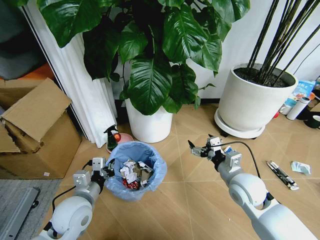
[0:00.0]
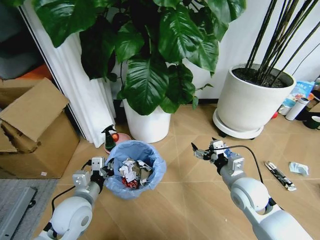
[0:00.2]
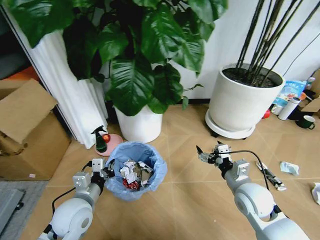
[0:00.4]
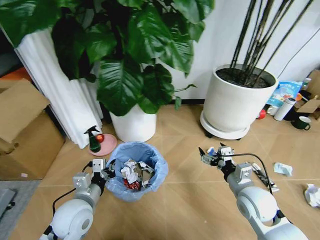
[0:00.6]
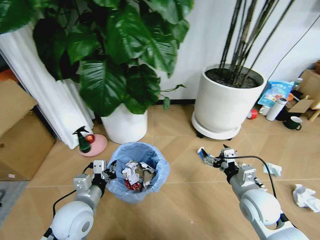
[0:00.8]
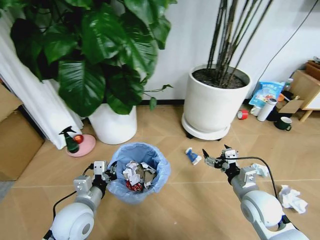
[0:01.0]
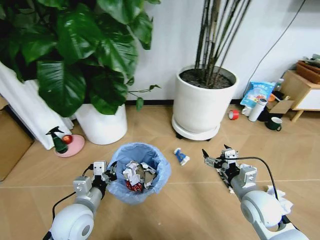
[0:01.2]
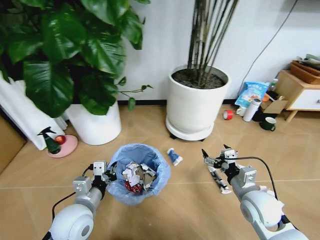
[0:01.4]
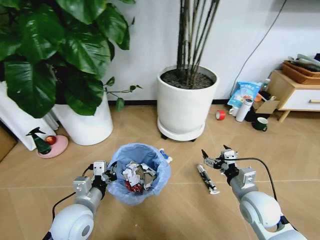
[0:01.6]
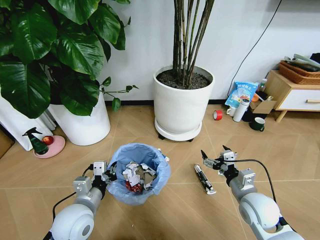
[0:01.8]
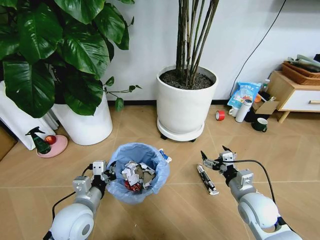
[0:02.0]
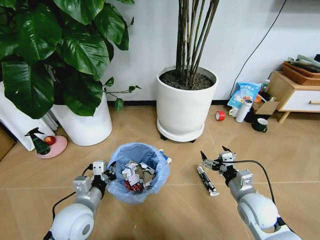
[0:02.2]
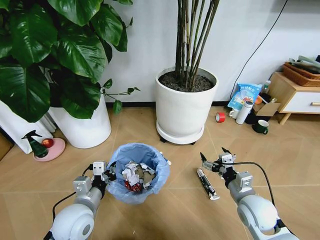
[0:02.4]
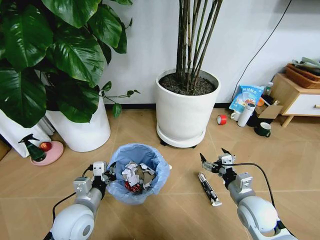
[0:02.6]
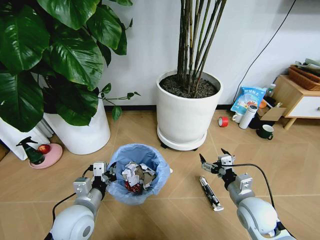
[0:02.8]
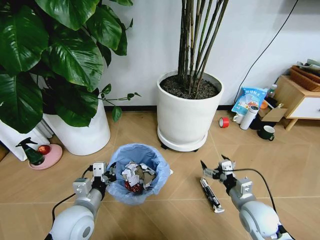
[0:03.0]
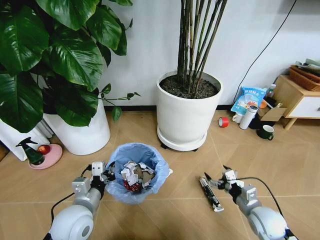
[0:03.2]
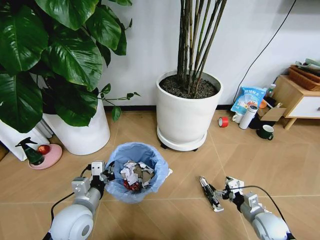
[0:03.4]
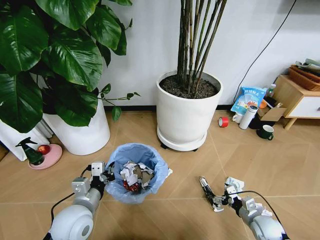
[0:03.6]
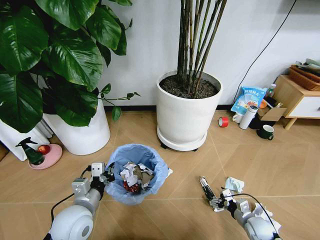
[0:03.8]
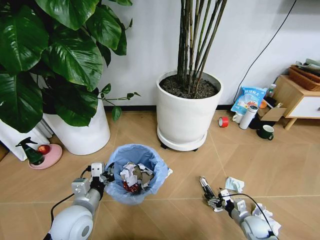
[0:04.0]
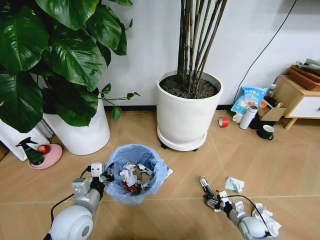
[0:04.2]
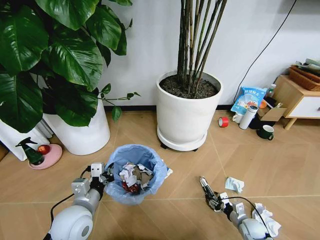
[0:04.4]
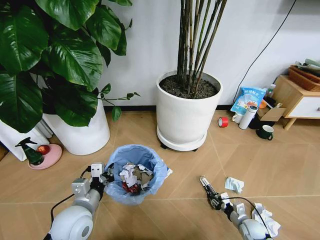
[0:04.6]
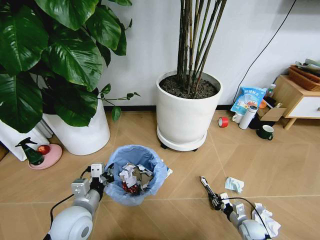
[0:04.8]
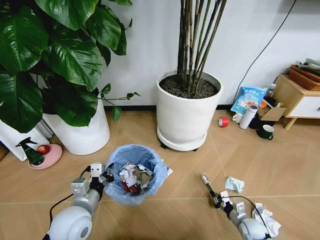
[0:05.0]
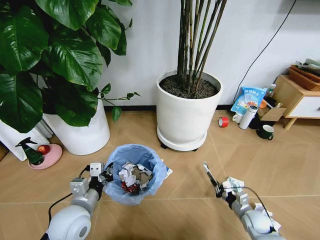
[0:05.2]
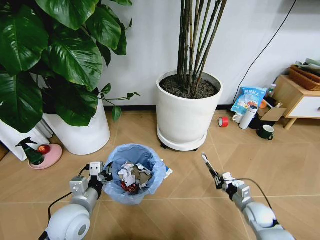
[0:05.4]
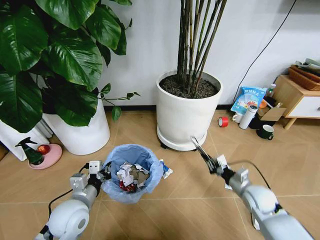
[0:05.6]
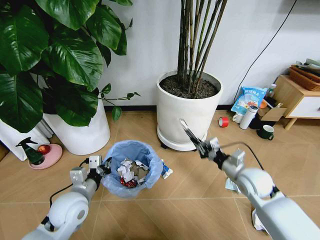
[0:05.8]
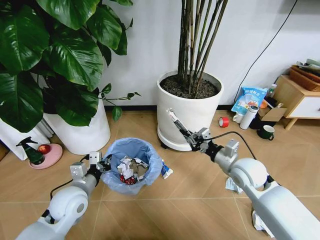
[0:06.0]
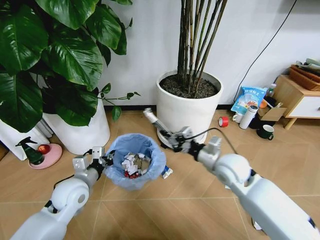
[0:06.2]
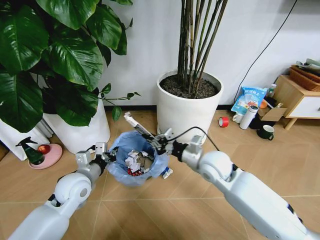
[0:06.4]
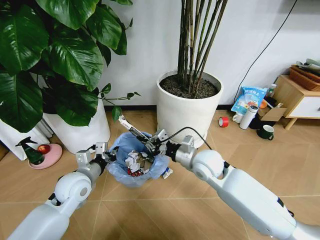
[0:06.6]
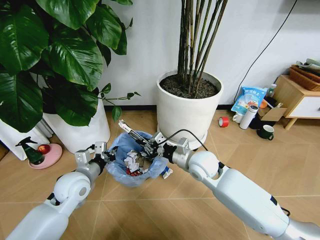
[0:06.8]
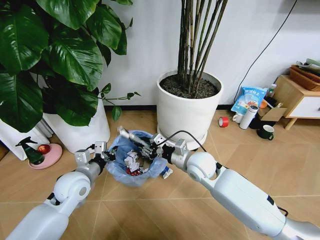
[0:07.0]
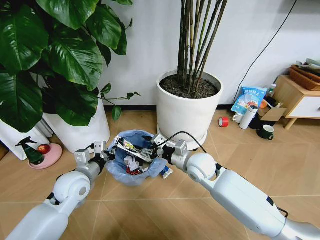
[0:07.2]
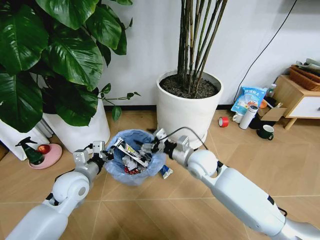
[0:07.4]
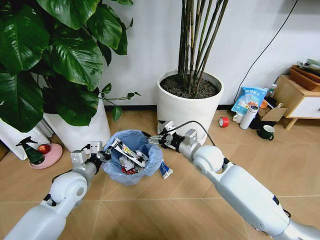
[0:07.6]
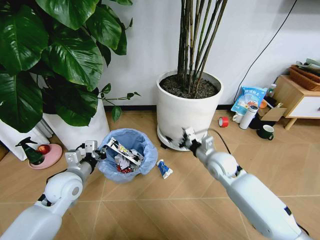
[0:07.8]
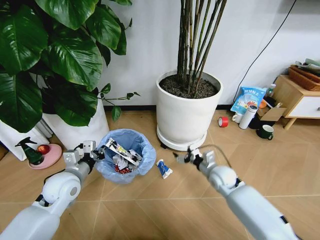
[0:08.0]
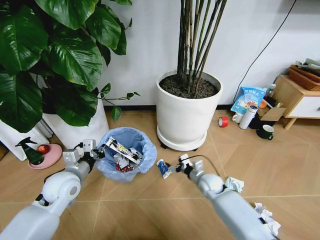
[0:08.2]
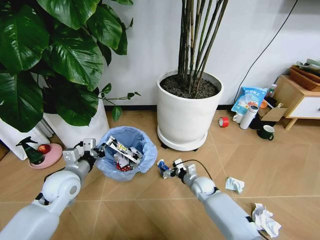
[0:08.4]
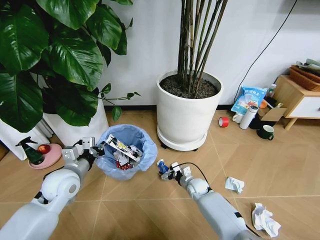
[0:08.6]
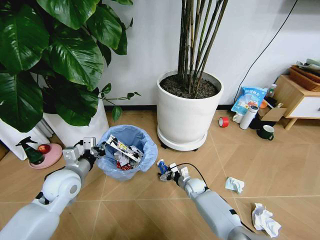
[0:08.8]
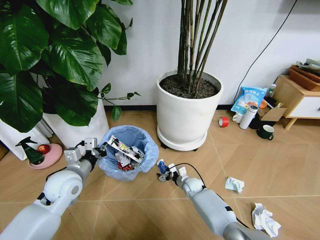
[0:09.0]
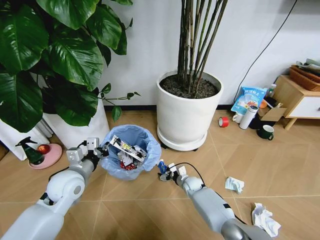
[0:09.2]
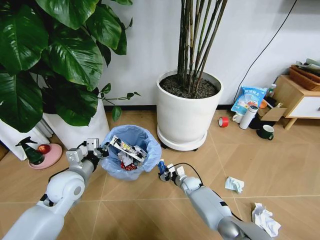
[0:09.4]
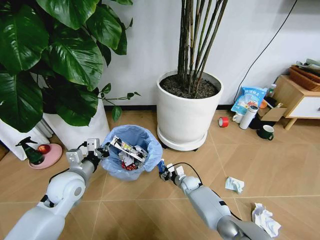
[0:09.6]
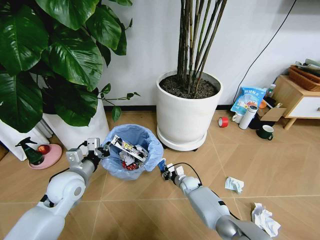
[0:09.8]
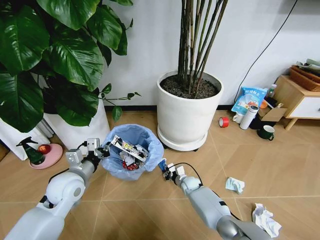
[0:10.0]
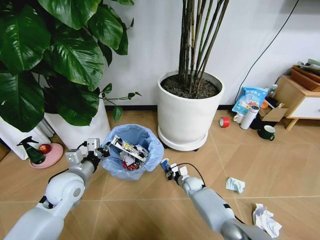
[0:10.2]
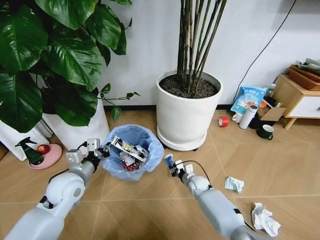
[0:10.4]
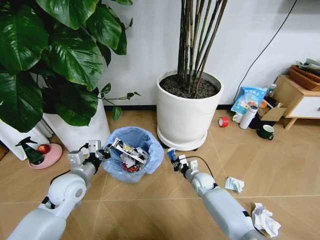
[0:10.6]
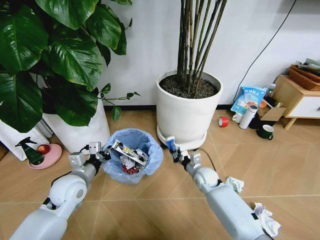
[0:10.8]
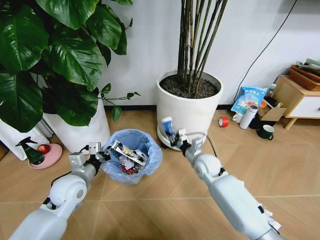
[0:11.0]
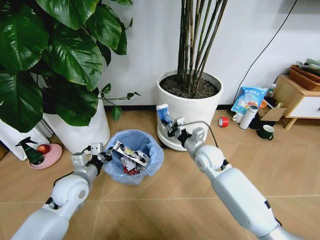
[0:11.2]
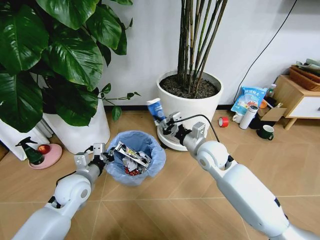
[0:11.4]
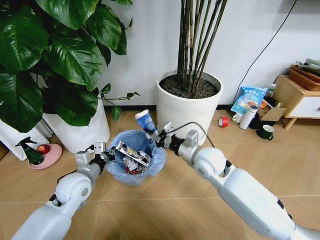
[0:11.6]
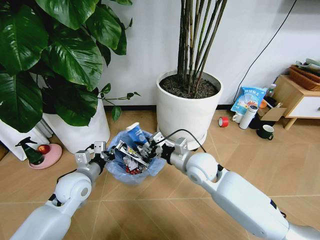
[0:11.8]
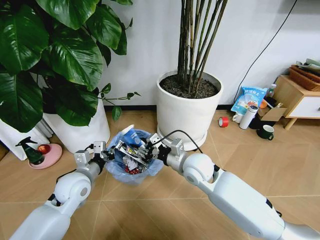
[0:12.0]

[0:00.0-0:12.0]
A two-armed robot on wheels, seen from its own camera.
Task of the whole recording: Pick up the trash bin and place the garbage on the floor into it.
0:00.0 to 0:01.6: The right gripper moves some 5 cm.
0:03.0 to 0:04.4: The right gripper is displaced downward by some 20 cm, and closes its fingers.
0:04.4 to 0:06.0: The left gripper is displaced forward by roughly 5 cm. Meanwhile the right gripper heads upward, covering roughly 30 cm, and closes up.
0:06.0 to 0:07.6: The right gripper shifts approximately 15 cm to the left and forward, and opens.
0:07.6 to 0:09.0: The right gripper is displaced downward by about 30 cm.
0:09.0 to 0:10.4: The right gripper closes up.
0:10.4 to 0:12.0: The right gripper is displaced upward by approximately 25 cm.

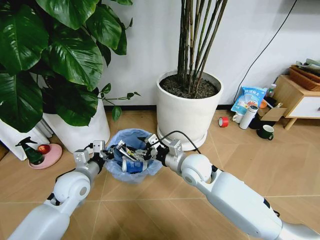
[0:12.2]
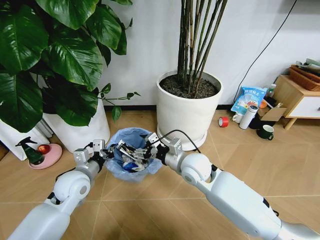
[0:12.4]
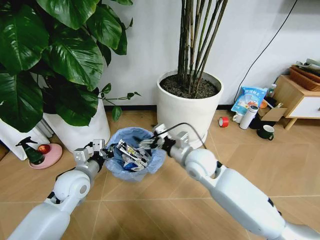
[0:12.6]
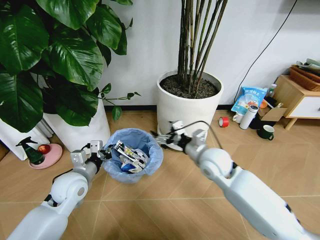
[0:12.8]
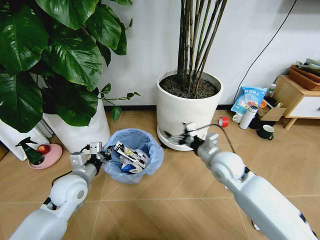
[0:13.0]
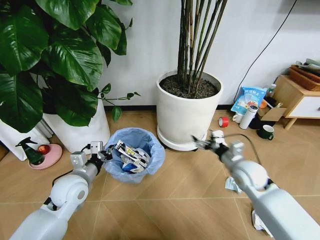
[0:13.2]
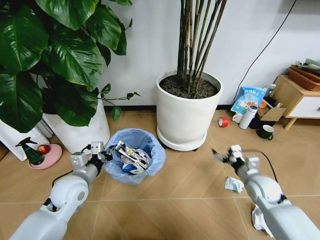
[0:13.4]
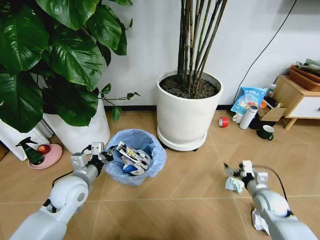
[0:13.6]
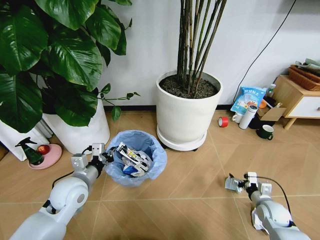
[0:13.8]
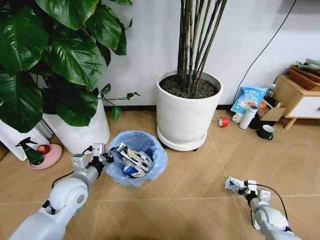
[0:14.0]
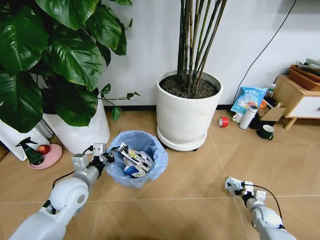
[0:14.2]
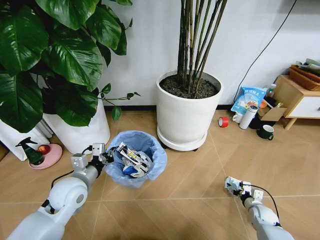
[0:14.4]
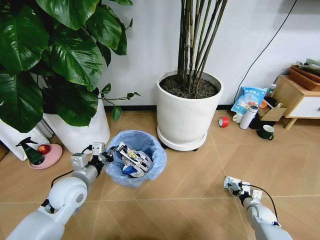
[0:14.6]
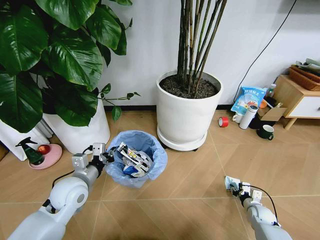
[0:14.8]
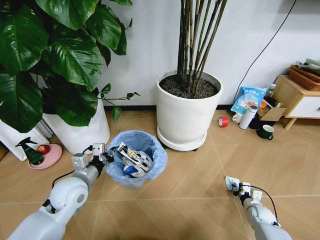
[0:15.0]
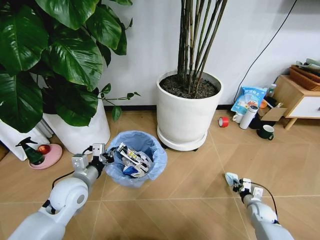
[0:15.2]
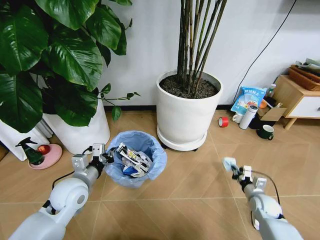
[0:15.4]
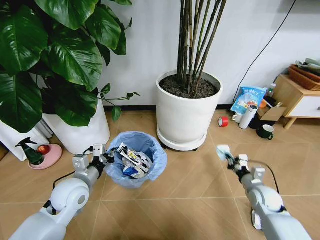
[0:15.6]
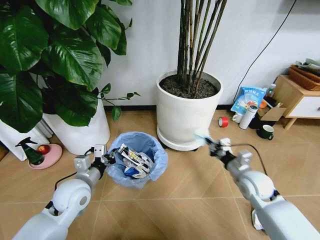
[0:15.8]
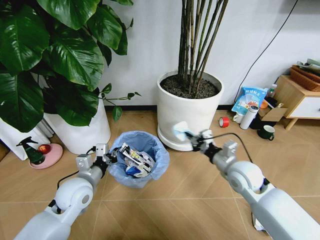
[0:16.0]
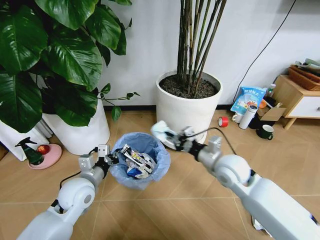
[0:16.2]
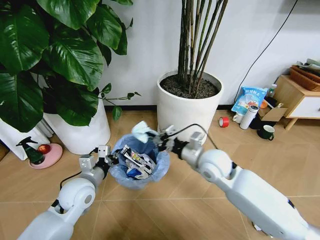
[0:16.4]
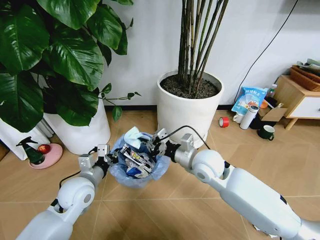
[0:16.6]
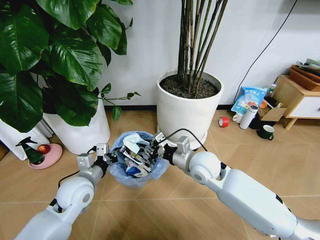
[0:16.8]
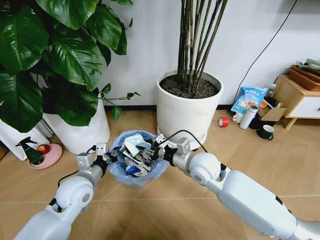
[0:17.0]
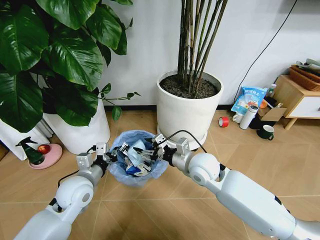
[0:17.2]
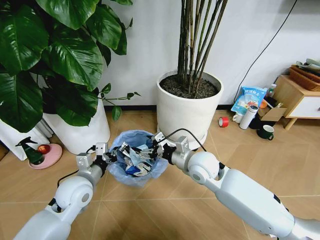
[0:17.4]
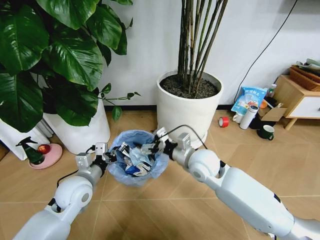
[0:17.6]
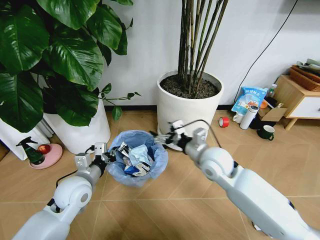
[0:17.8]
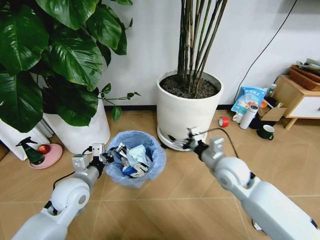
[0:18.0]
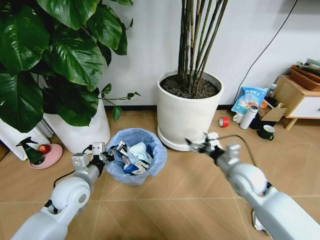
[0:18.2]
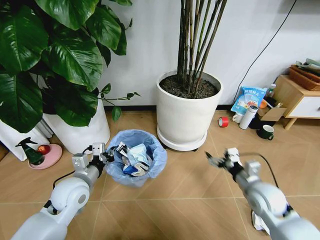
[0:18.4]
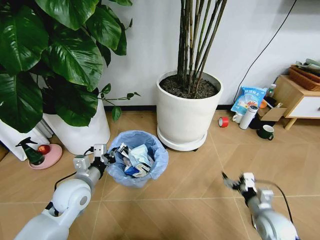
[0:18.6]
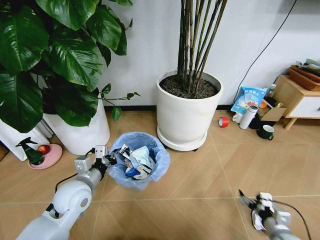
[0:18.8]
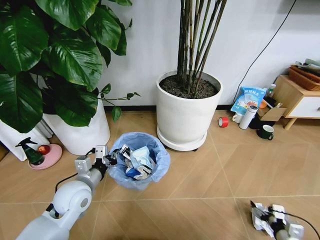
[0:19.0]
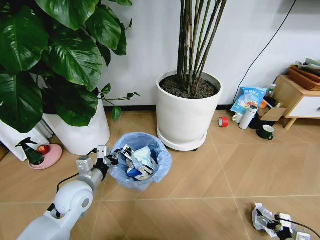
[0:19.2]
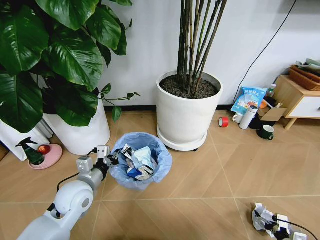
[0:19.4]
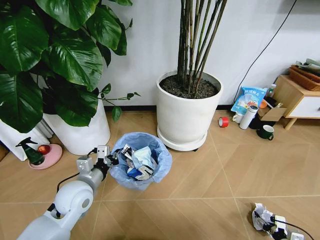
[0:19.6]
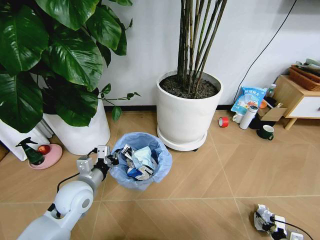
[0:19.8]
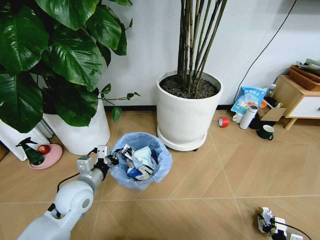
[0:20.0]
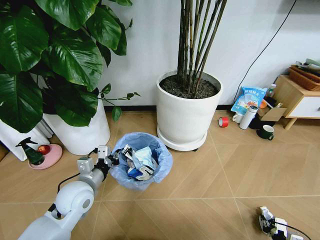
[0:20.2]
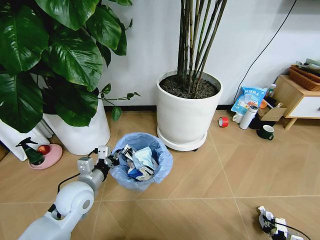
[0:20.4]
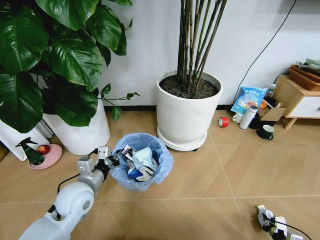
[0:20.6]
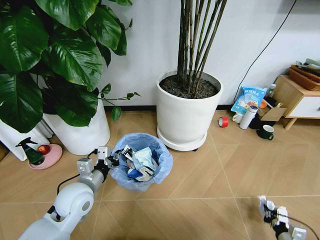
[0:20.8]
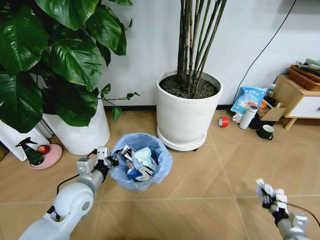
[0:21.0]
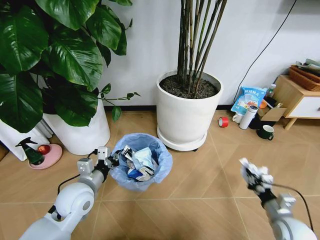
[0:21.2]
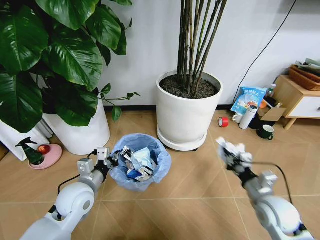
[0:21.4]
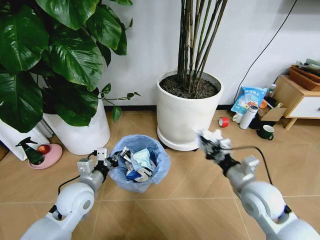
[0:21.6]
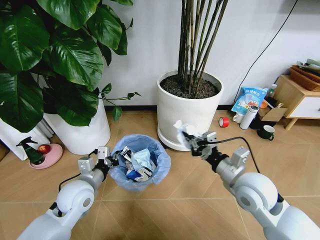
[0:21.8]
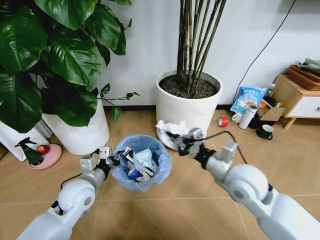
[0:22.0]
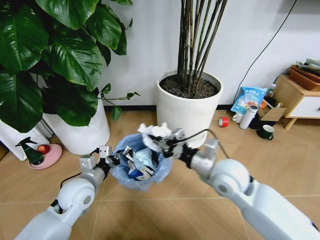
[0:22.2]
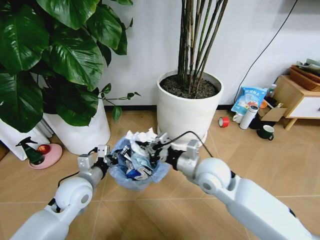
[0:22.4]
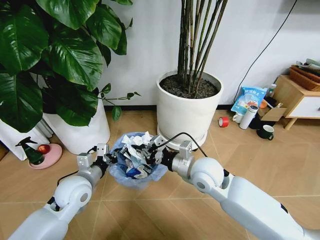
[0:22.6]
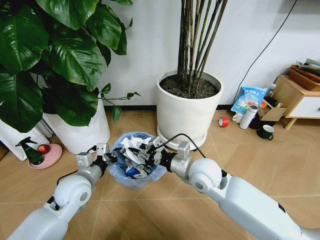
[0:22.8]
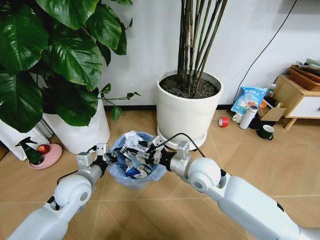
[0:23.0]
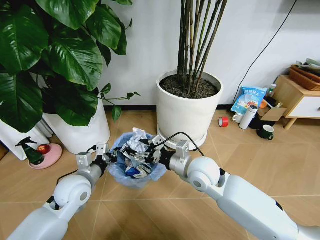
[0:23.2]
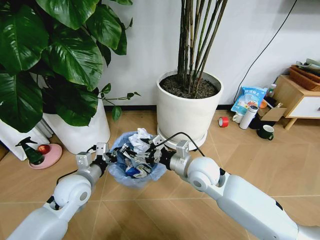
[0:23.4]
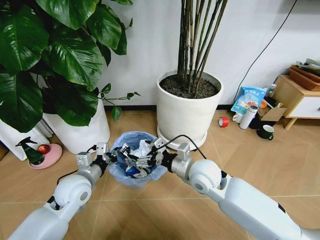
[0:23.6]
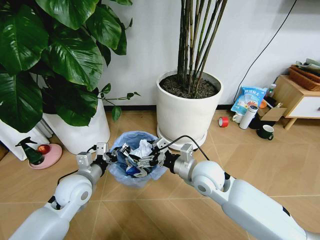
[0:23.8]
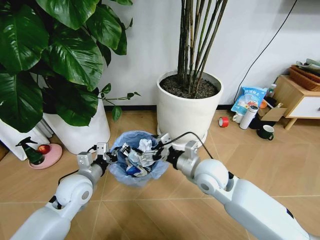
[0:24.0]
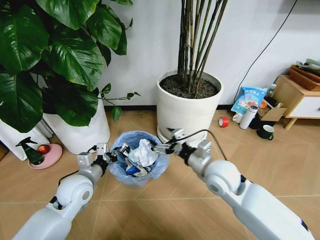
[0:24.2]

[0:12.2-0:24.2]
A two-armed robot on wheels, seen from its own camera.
Task of the whole recording: Pick up the trash bin and place the garbage on the floor into it.
0:12.2 to 0:13.8: The right gripper shifts some 35 cm to the right and downward, and opens up.
0:13.8 to 0:15.2: The right gripper heads downward, covering some 10 cm, and closes its fingers.
0:15.2 to 0:16.6: The right gripper shifts roughly 40 cm upward and to the left.
0:16.6 to 0:18.2: The right gripper is displaced to the right by roughly 15 cm, and opens up.
0:18.2 to 0:19.8: The right gripper travels downward, to the right and backward by roughly 40 cm, and closes its fingers.
0:19.8 to 0:21.2: The right gripper shifts about 20 cm upward, forward and to the left, and closes.
0:21.2 to 0:22.6: The right gripper travels to the left, upward and forward by roughly 35 cm.
0:22.6 to 0:24.2: The right gripper opens its fingers.
